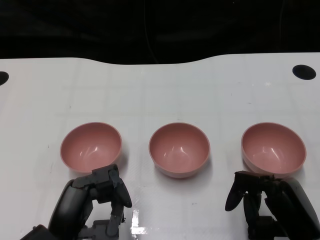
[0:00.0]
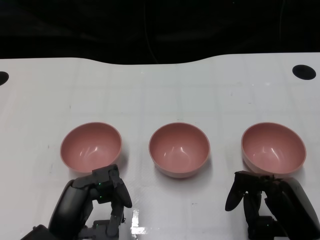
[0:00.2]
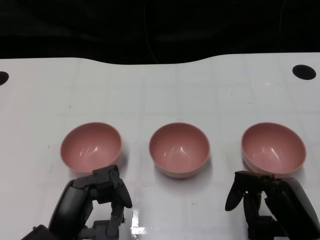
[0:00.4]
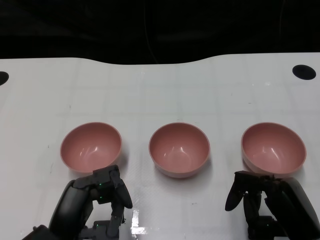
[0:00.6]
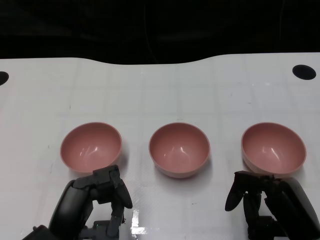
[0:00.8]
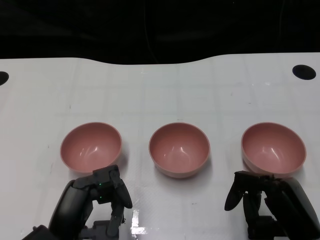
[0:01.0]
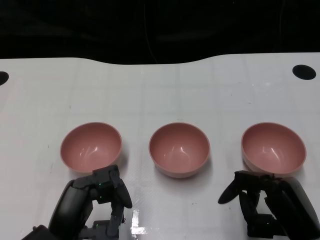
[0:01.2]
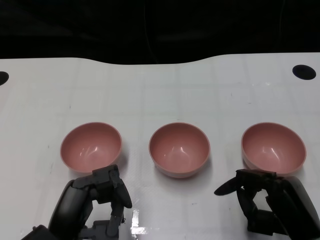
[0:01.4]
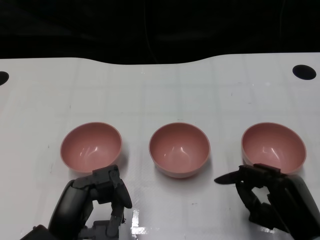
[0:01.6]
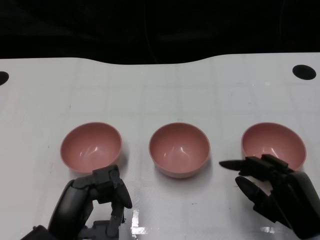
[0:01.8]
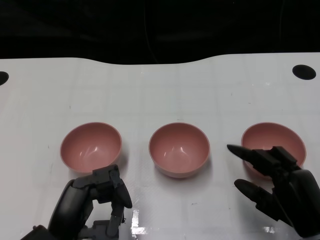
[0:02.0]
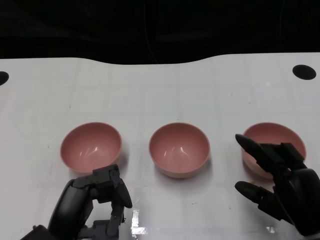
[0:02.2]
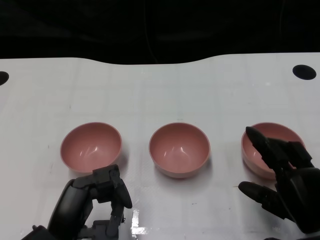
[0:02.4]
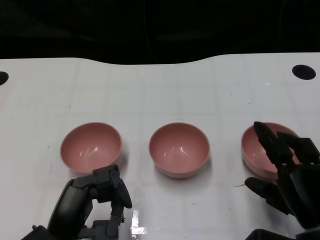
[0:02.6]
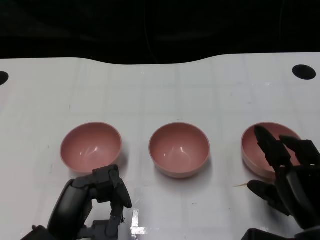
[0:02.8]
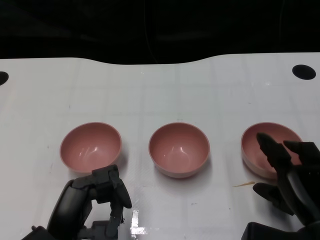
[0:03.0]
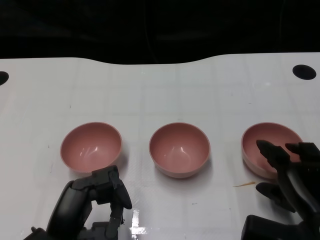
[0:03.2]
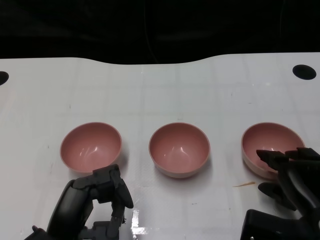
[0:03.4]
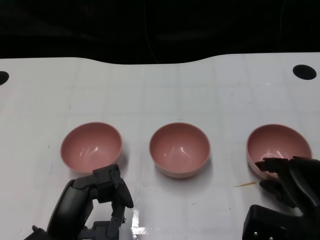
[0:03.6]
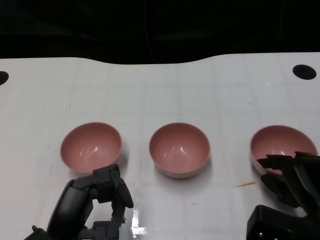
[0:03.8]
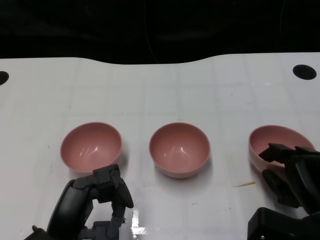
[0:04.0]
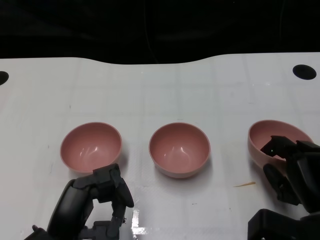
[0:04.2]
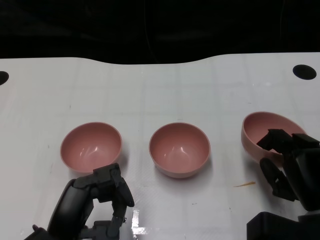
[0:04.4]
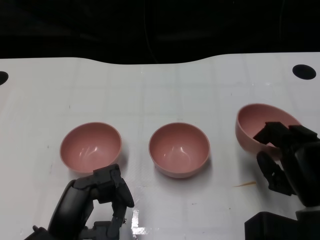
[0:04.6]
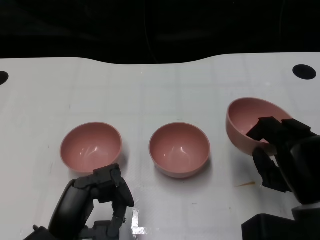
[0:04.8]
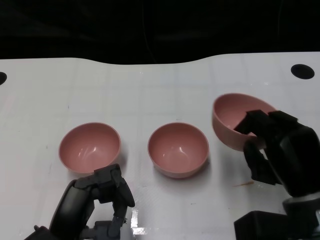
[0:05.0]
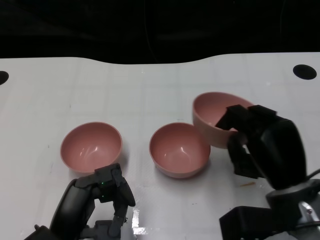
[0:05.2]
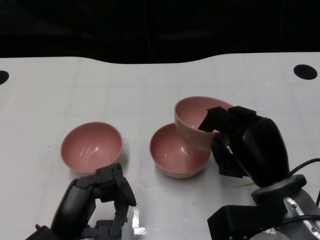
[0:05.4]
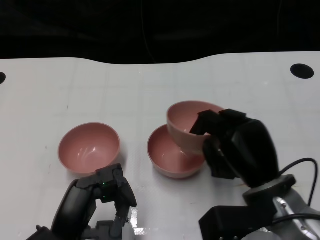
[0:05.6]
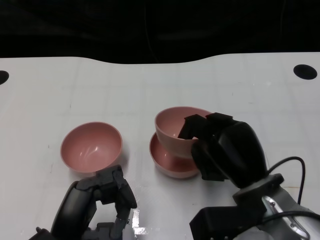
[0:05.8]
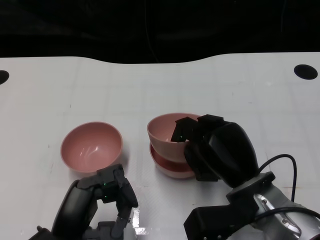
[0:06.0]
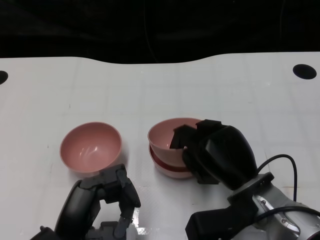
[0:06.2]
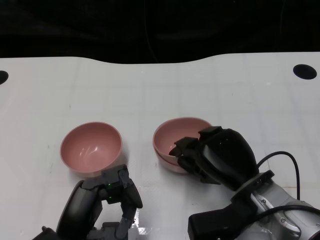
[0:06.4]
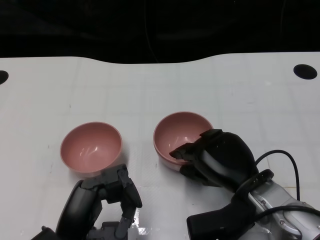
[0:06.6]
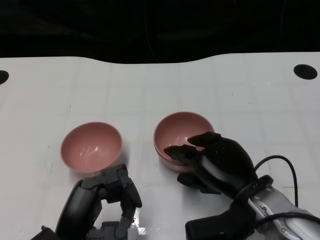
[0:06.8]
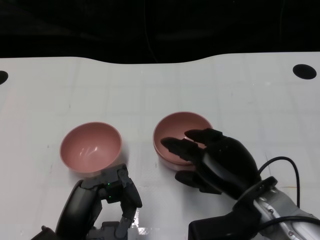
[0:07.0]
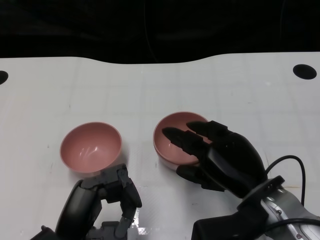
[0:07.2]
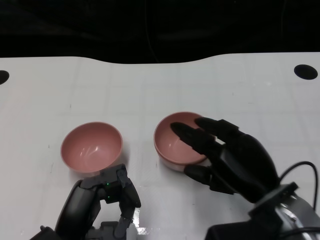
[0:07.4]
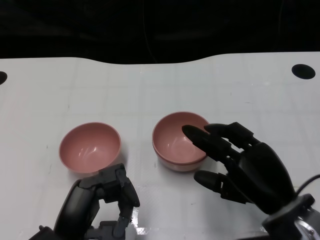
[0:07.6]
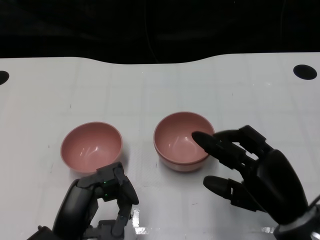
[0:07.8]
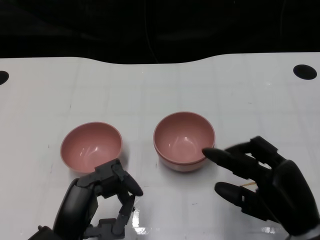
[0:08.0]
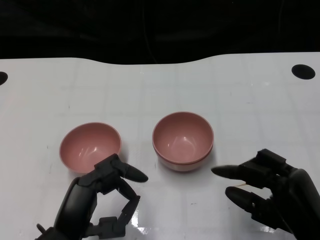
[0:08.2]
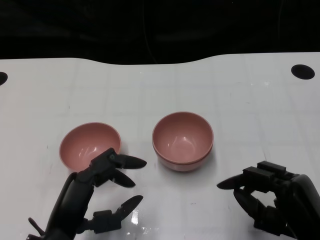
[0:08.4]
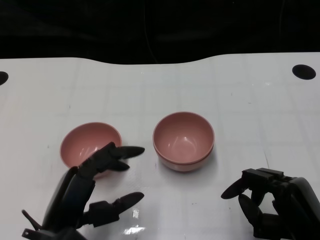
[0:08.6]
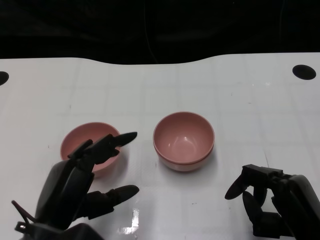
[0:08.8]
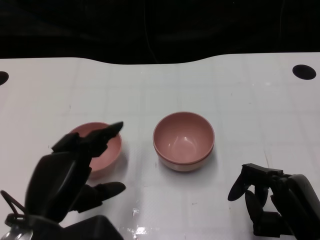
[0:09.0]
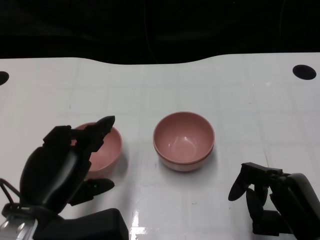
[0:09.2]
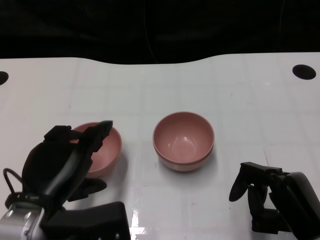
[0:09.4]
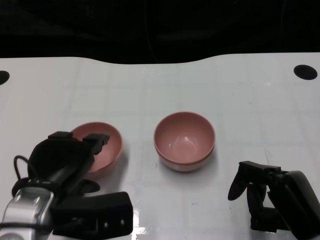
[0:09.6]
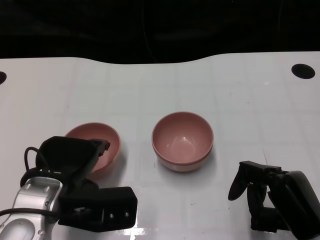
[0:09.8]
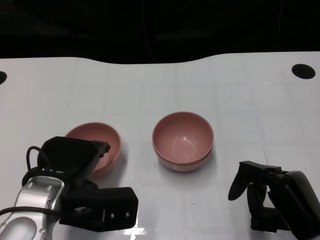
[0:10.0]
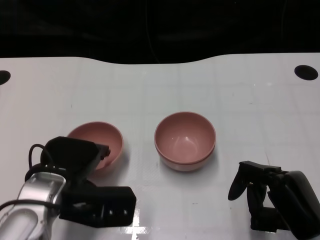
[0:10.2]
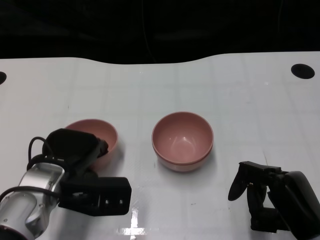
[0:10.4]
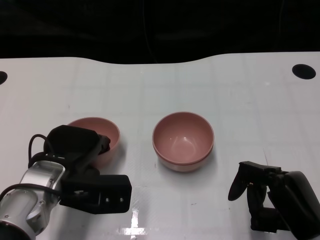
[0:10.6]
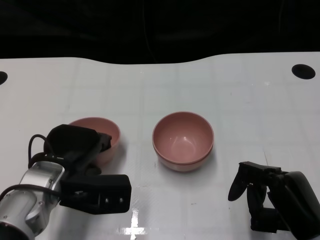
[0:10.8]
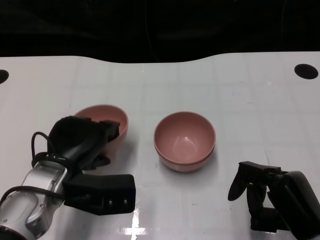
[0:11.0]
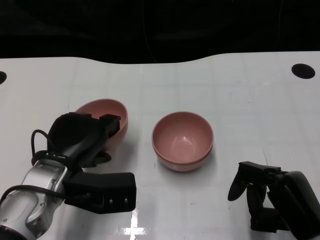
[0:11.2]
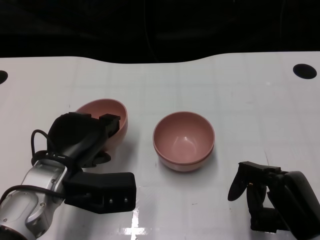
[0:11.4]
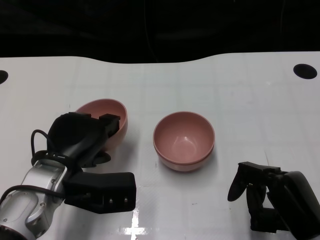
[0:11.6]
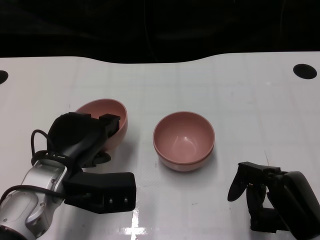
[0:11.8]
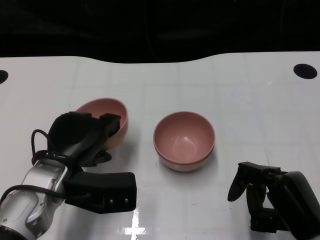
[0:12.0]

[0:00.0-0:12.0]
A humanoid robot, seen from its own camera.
Task of the whole recording: Pick up the bowl on one side of the table and place it on top of the middle bowl, then pick up the bowl on the other side of the table and place it on top of the middle bowls.
Step, 0:01.2 to 0:04.2: Grasp the bowl on the right with the right gripper.
Step, 0:04.4 to 0:07.6: Place the bowl on the right onto the bowl in the middle with right gripper.
Step, 0:07.8 to 0:10.8: Grasp the bowl on the left with the left gripper.
0:03.0 to 0:04.4: The hands make only small movements.
0:04.4 to 0:06.0: The right hand shifts about 10 cm to the left.
0:06.0 to 0:07.6: The right hand moves approximately 5 cm.
0:07.6 to 0:09.0: The right hand ends up roughly 5 cm from where it was; the left hand is displaced upward by about 5 cm.
0:09.0 to 0:10.4: The left hand shifts some 10 cm forward.
0:10.4 to 0:12.0: The hands make only small movements.

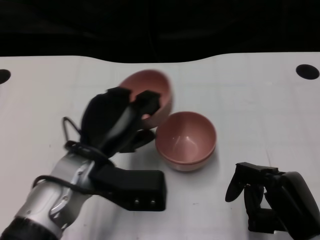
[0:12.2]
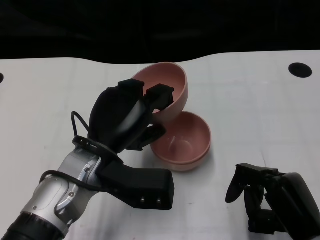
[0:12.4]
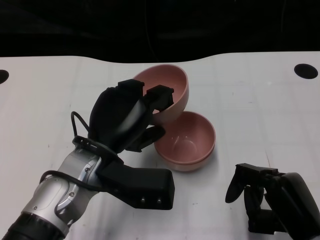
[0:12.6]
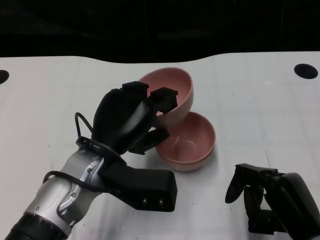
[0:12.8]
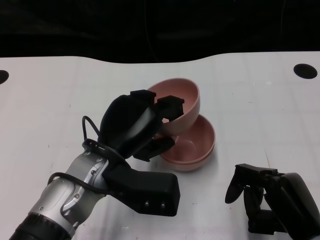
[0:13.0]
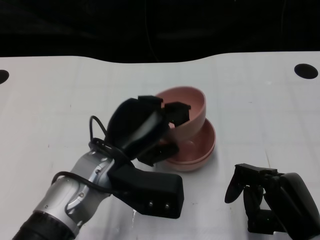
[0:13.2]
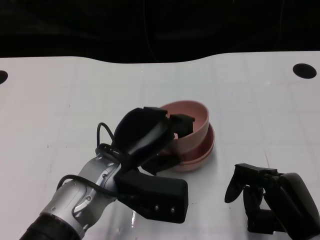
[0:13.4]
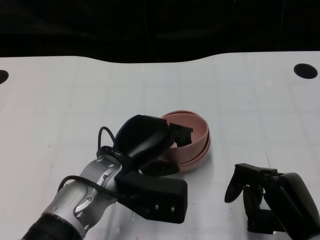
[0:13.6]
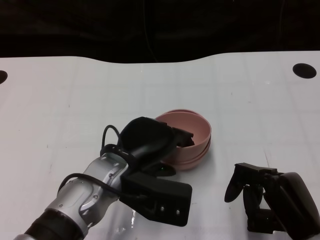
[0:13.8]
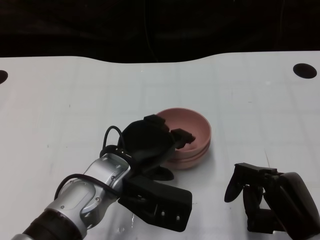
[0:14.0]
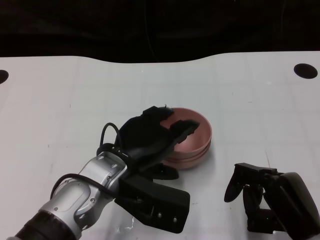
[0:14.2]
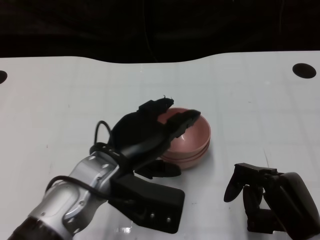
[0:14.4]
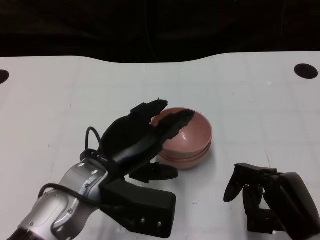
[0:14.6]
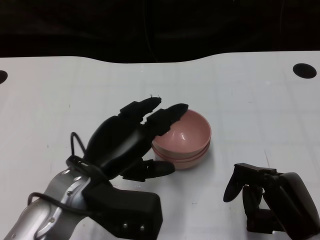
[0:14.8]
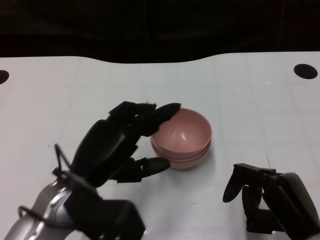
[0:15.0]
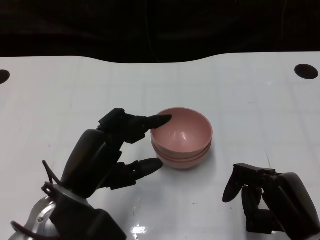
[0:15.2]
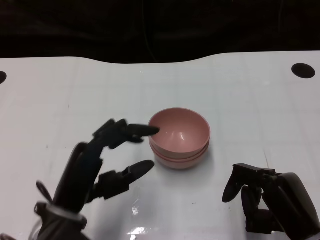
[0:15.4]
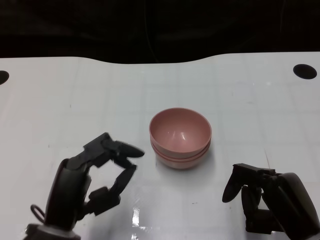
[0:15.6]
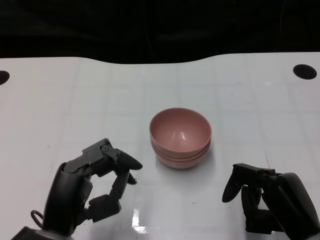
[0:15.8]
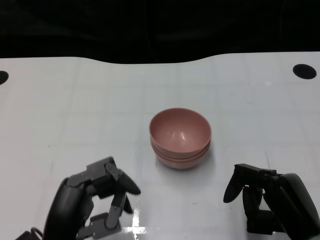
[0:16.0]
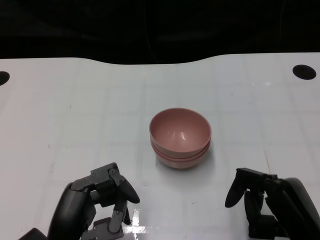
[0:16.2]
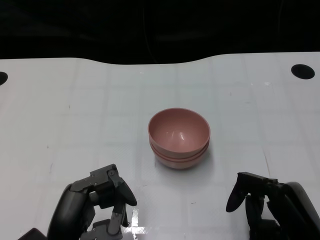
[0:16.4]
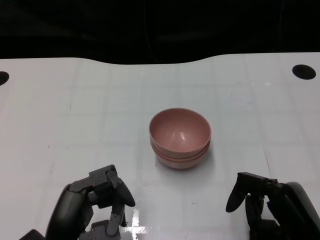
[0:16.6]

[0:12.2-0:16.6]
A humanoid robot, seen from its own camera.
Task of the whole recording: Pick up the bowl on one side of the table and place it on top of the middle bowl, then pick up the bowl on the other side of the table and place it on top of the middle bowls.
Step, 0:12.2 to 0:15.0: Place the bowl on the left onto the bowl in the middle with left gripper.
0:13.6 to 0:15.2: The left hand moves to the left, some 5 cm.
0:15.2 to 0:16.6: The left hand shifts approximately 5 cm backward.

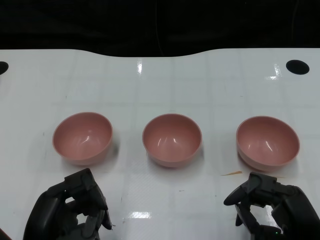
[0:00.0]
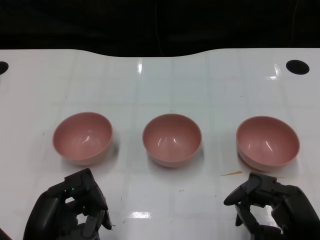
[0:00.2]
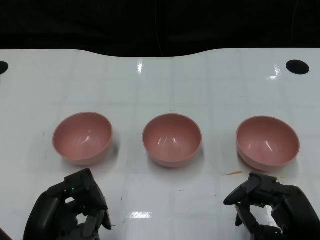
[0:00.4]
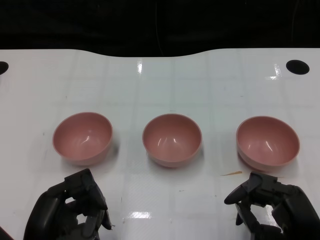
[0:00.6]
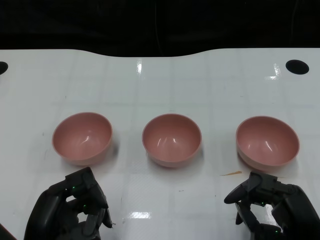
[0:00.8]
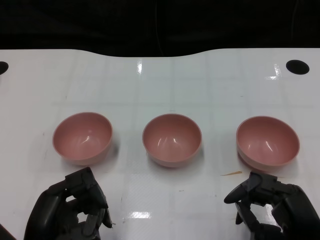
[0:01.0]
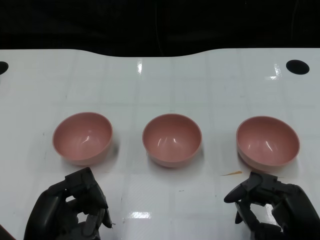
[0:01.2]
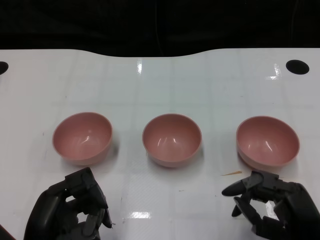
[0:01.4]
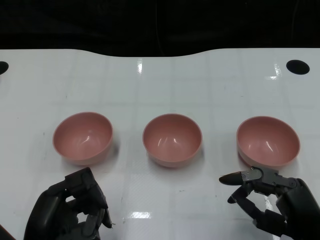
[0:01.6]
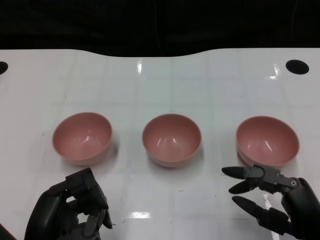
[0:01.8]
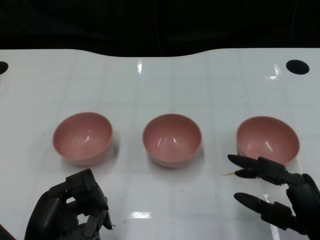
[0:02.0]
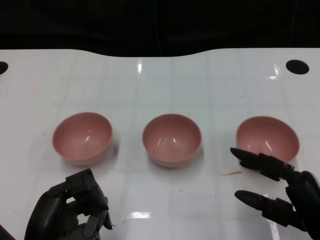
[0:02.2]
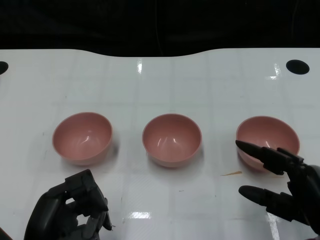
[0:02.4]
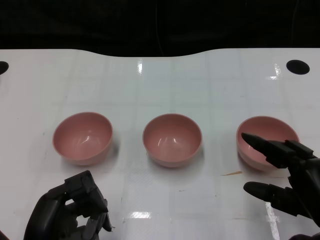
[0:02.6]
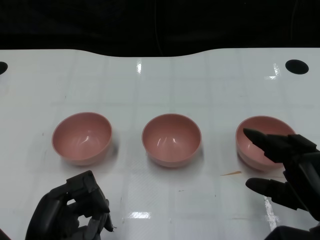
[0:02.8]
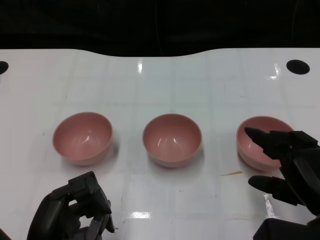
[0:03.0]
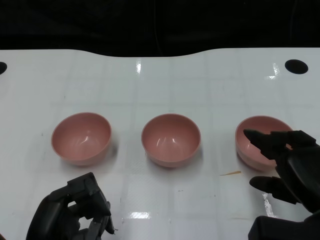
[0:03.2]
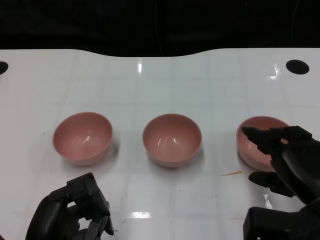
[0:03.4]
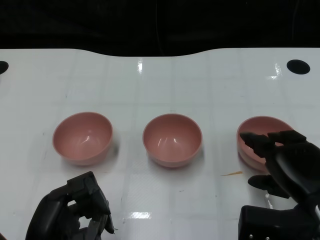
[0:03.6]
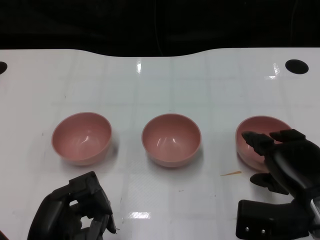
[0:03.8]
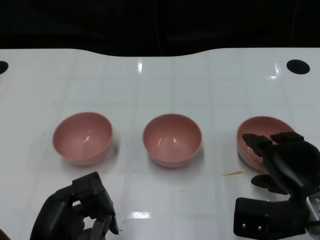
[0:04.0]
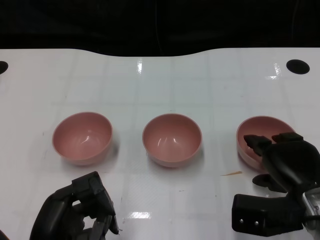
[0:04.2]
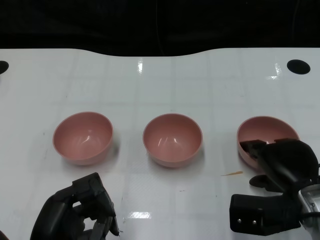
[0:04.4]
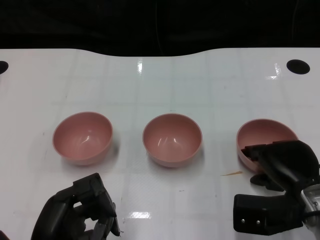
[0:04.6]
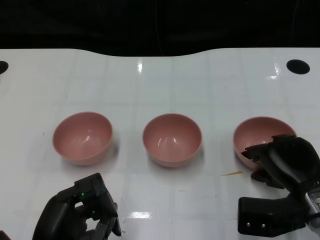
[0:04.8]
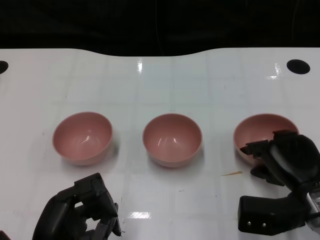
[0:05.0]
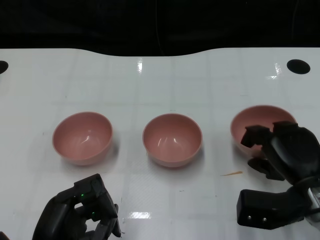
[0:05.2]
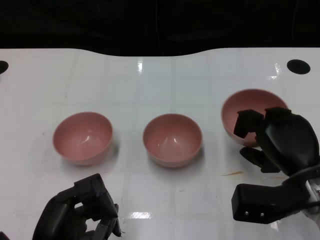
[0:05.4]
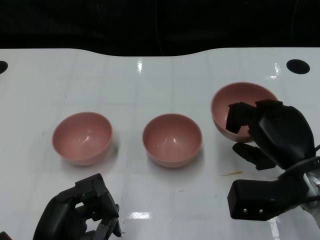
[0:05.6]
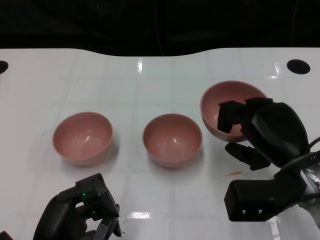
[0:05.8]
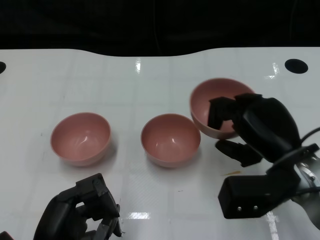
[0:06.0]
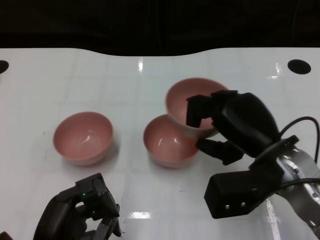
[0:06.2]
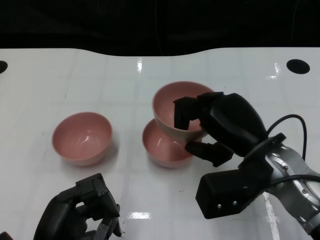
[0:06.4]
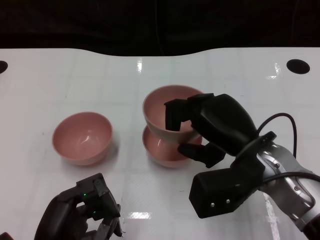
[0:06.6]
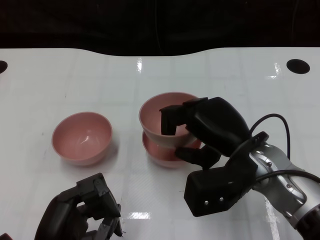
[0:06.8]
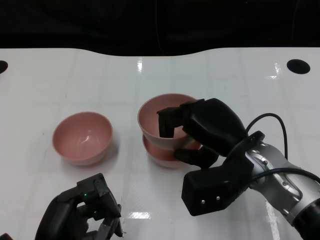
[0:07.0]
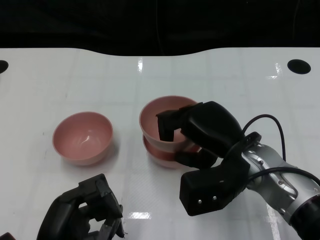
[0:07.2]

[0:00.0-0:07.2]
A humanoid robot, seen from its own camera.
Task of the whole recording: Pick up the bowl on one side of the table and place it on top of the middle bowl, then pick up the bowl on the other side of the table and place it on top of the middle bowls.
Step, 0:01.4 to 0:05.2: Grasp the bowl on the right with the right gripper.
0:01.4 to 0:02.8: The right hand ends up approximately 5 cm from where it was.
0:02.8 to 0:04.4: The right hand moves forward, approximately 5 cm.
0:04.4 to 0:05.8: The right hand changes place by about 5 cm.
0:05.8 to 0:07.2: The right hand goes roughly 5 cm to the left.
